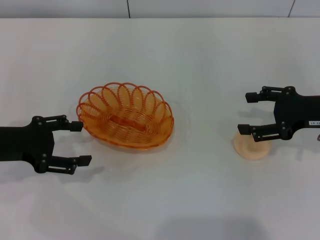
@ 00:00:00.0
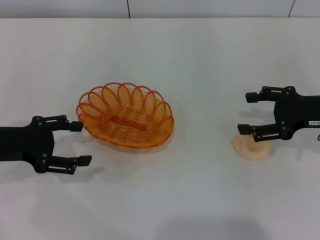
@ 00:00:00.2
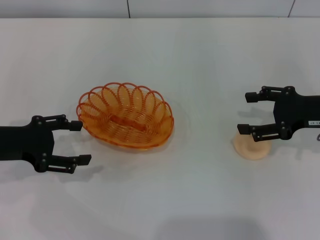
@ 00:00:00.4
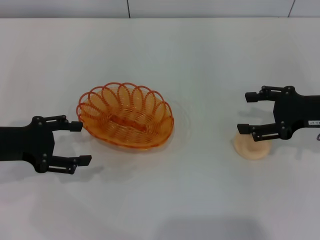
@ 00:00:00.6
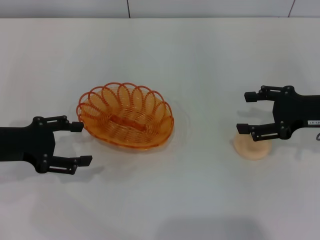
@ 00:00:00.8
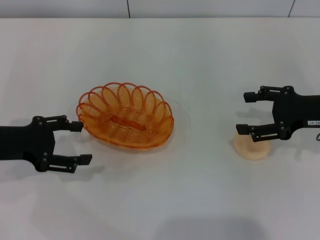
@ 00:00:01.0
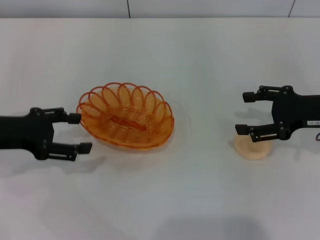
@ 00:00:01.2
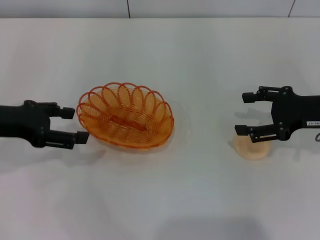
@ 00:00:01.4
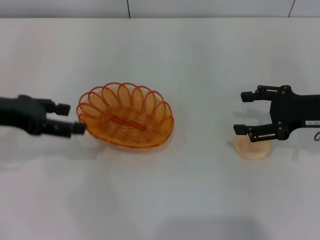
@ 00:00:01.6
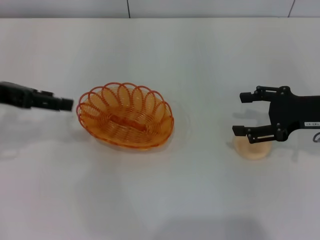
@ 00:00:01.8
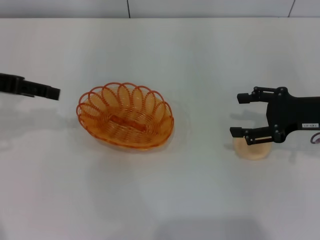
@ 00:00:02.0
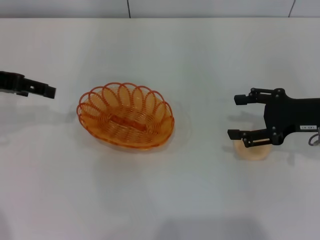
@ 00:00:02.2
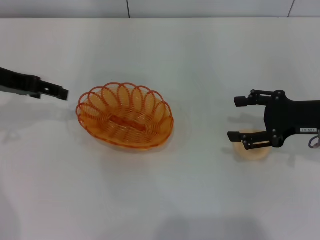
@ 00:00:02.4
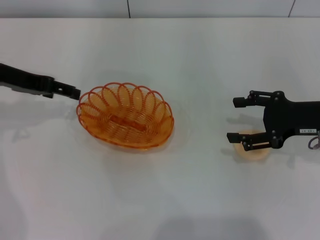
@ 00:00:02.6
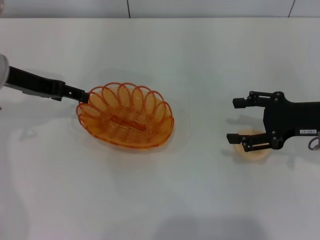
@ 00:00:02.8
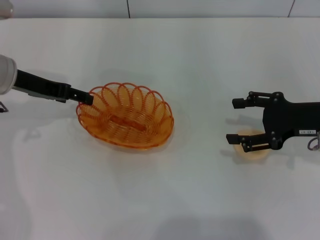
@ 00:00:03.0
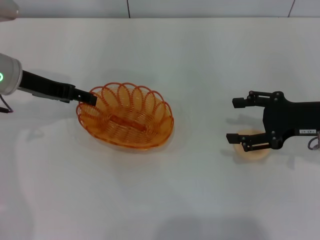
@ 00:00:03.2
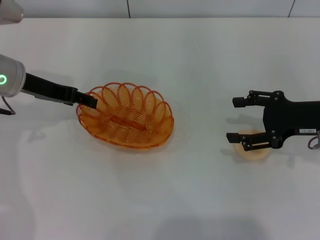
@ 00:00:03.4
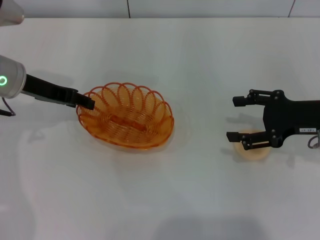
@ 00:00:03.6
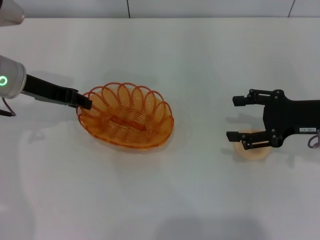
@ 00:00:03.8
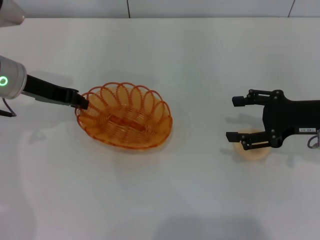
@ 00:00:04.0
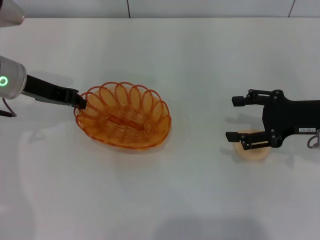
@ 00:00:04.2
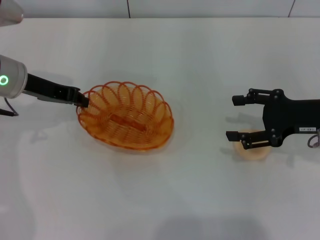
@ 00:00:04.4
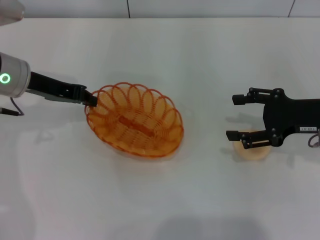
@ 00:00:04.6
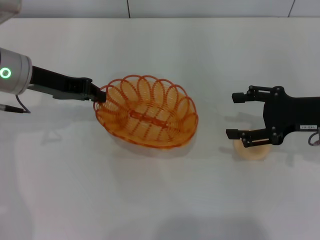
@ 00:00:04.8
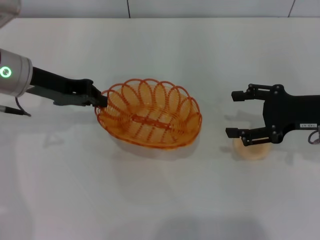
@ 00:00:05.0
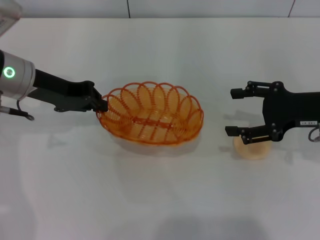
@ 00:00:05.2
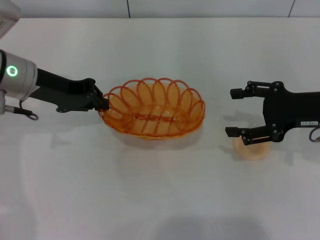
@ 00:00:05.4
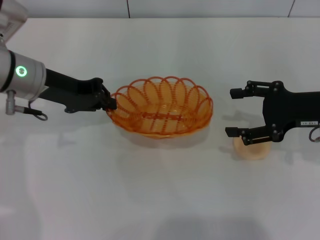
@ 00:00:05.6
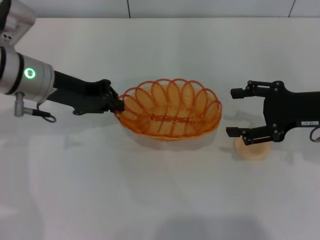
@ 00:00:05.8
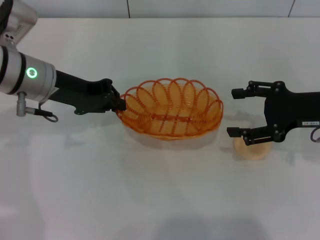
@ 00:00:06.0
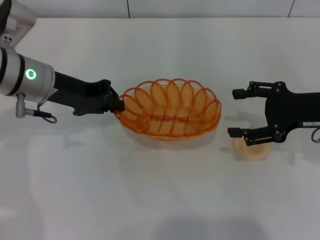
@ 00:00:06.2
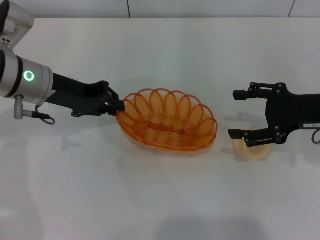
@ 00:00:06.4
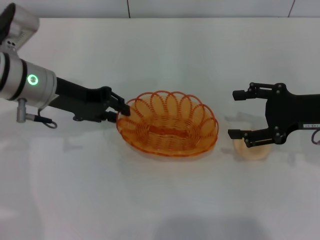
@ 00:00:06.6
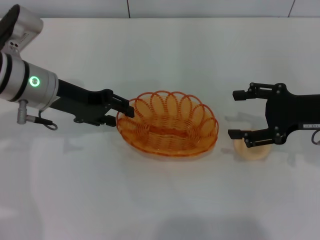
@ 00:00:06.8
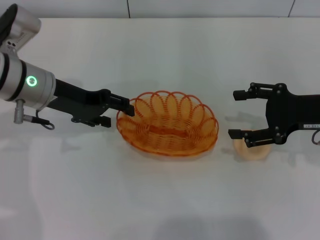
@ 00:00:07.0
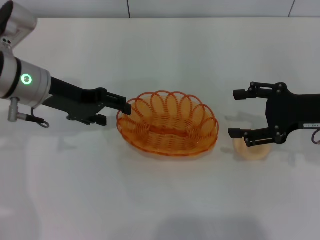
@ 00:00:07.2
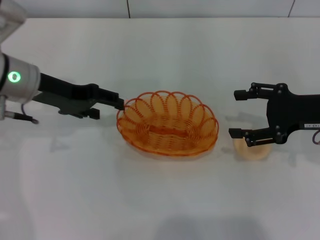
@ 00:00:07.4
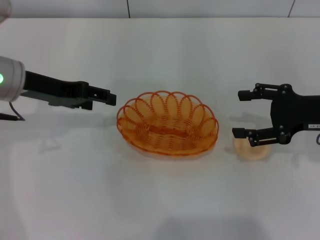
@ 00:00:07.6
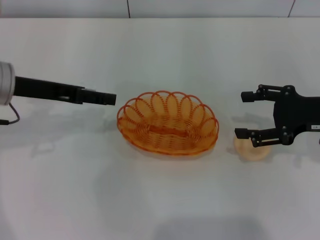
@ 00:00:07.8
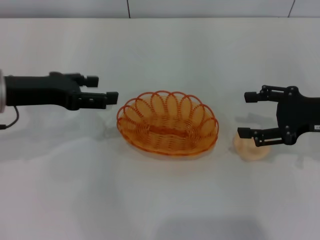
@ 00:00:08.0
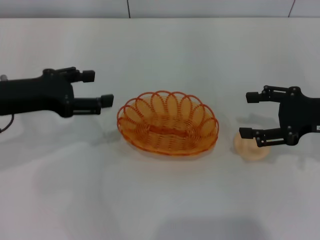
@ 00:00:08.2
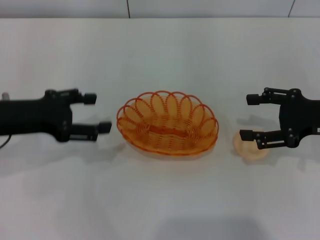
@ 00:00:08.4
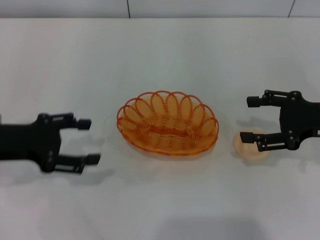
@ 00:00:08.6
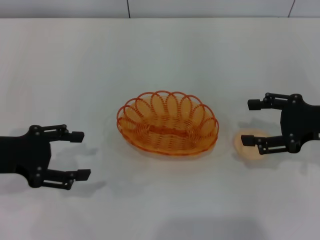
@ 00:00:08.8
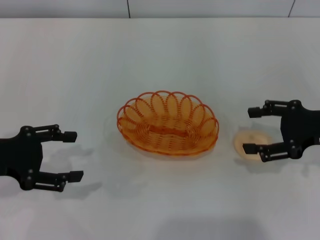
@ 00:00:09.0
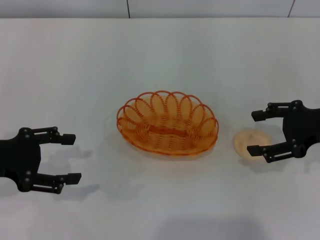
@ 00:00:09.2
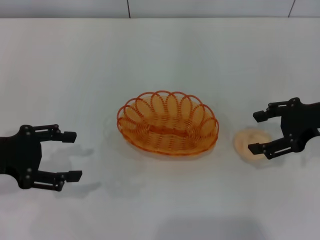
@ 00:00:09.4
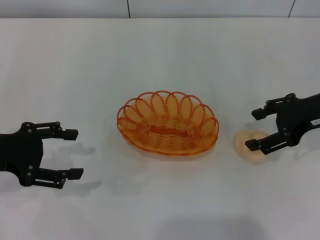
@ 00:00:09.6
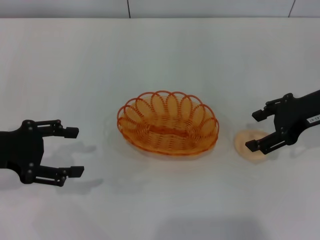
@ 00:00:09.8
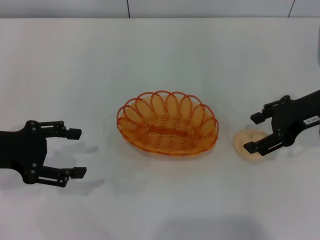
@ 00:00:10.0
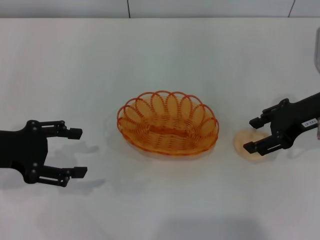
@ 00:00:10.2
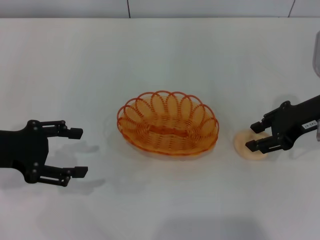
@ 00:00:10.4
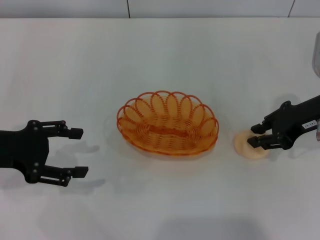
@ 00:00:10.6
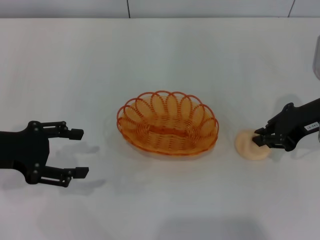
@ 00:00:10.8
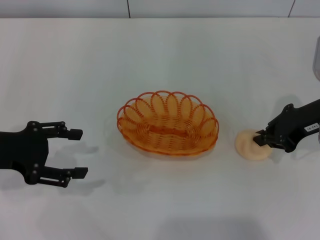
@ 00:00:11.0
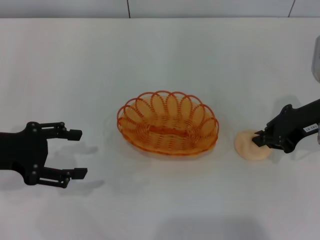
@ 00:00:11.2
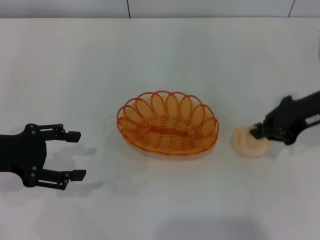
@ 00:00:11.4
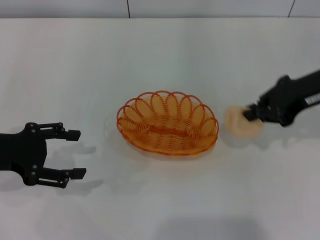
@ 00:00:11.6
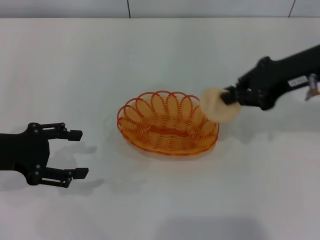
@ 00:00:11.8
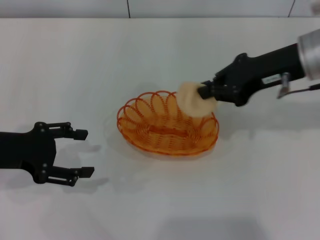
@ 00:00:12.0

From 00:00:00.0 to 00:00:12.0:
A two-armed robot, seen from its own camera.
Step, from 00:00:00.0 to 00:00:05.4: Pick up the basket with the left gripper.
Step, from 00:00:05.8 to 00:00:08.2: Place the basket in the center of view with the left gripper.
Step, from 00:00:08.4 to 00:00:11.4: Pick up the egg yolk pastry with the right gripper.
From 00:00:00.0 to 00:00:01.6: The left gripper moves upward, some 5 cm.
From 00:00:01.6 to 00:00:03.0: The left gripper moves forward, about 10 cm.
From 00:00:03.0 to 00:00:04.4: The left gripper closes its fingers.
From 00:00:06.0 to 00:00:07.6: The left gripper opens.
From 00:00:07.6 to 00:00:09.0: The left gripper travels backward and to the left by some 10 cm.
From 00:00:09.0 to 00:00:10.4: The right gripper moves approximately 5 cm.
From 00:00:10.4 to 00:00:12.0: The right gripper is displaced upward and to the left by approximately 10 cm, and closes up.

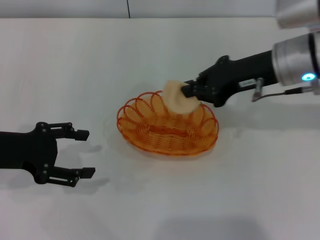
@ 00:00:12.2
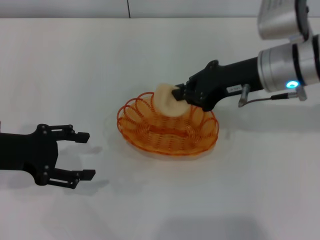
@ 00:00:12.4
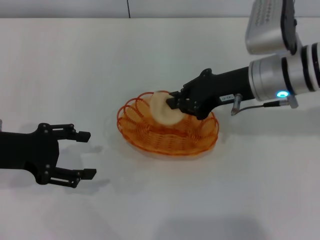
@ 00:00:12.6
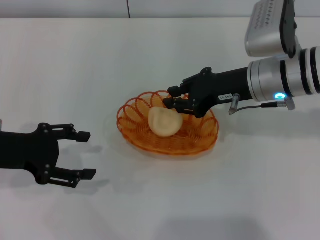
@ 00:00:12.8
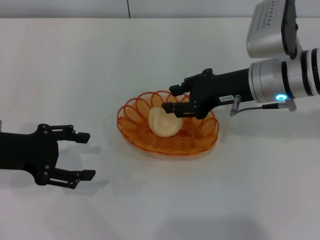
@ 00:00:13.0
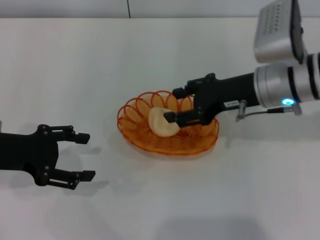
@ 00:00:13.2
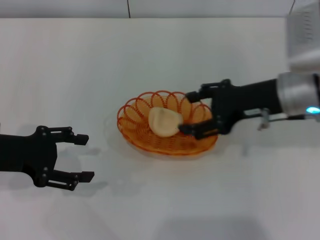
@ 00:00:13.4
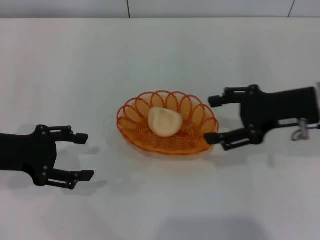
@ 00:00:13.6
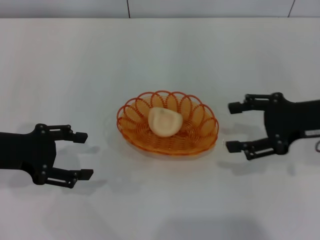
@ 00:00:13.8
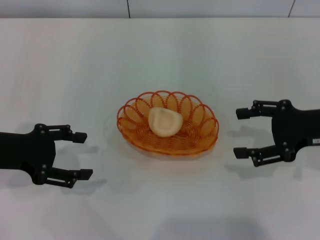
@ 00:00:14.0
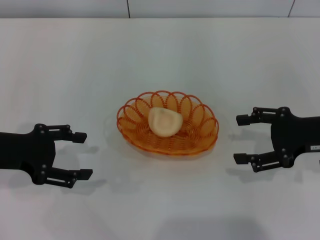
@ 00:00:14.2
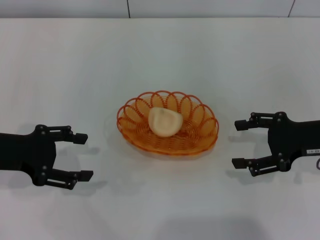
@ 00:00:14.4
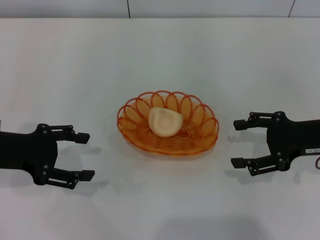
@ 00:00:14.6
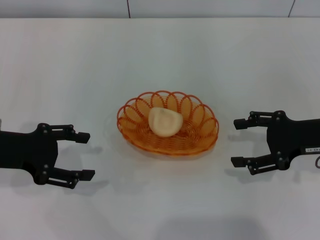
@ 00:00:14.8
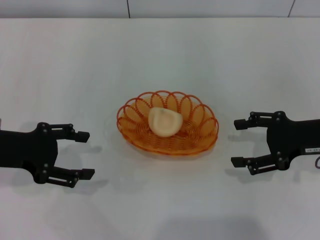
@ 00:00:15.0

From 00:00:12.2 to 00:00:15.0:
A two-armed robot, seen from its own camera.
Step, from 00:00:12.2 to 00:00:14.0: Place the egg yolk pastry into the basket with the right gripper.
From 00:00:12.2 to 00:00:13.6: The right gripper moves to the right, about 5 cm, and opens up.
From 00:00:13.6 to 00:00:15.0: The right gripper shifts by some 5 cm.
